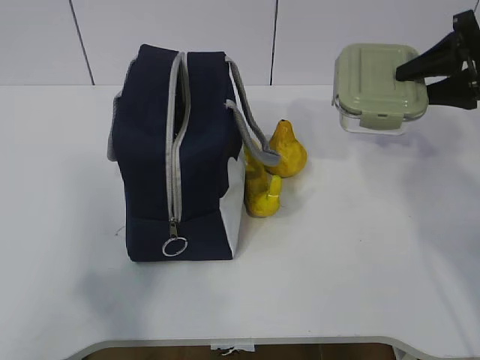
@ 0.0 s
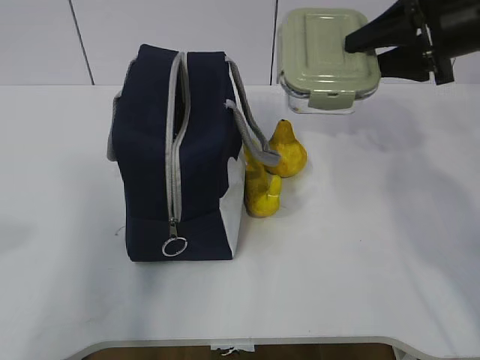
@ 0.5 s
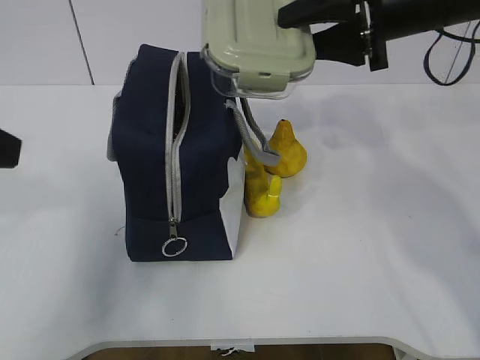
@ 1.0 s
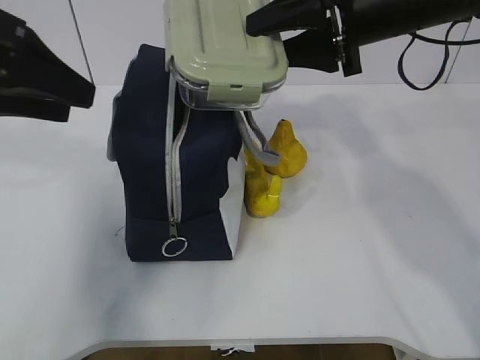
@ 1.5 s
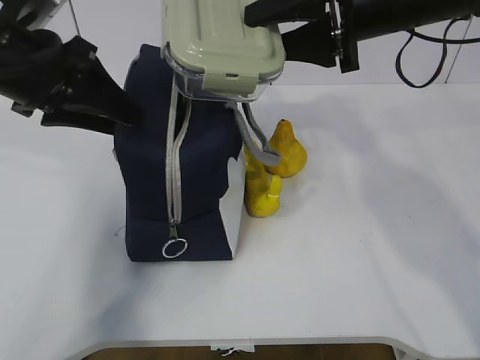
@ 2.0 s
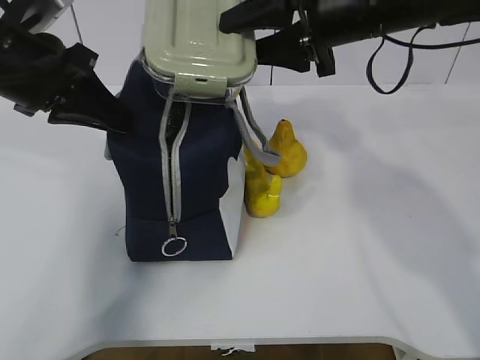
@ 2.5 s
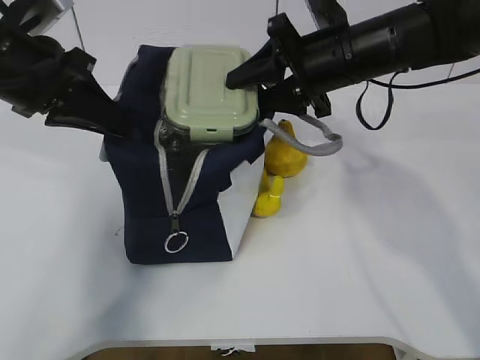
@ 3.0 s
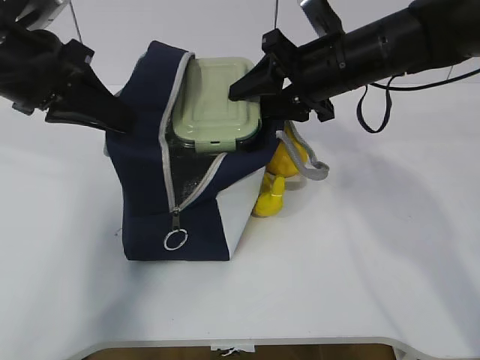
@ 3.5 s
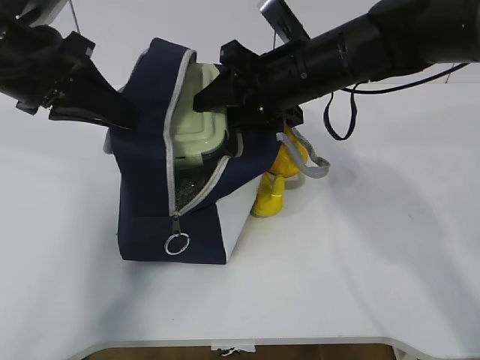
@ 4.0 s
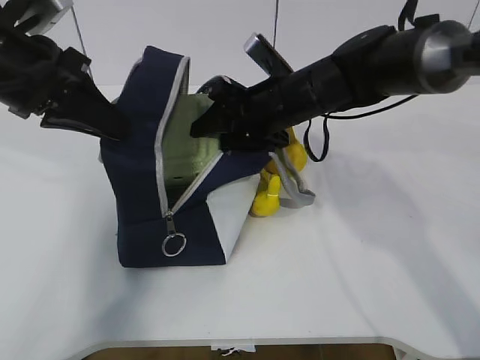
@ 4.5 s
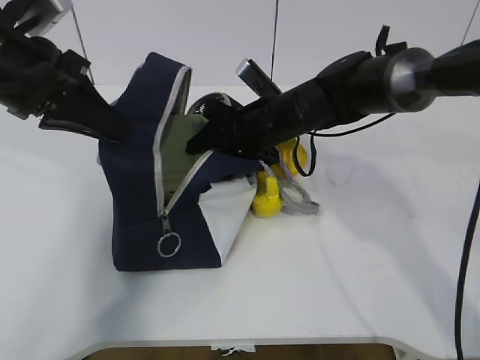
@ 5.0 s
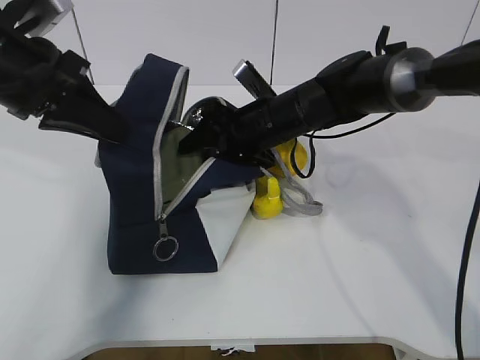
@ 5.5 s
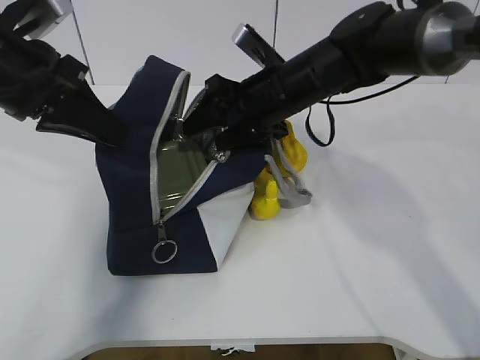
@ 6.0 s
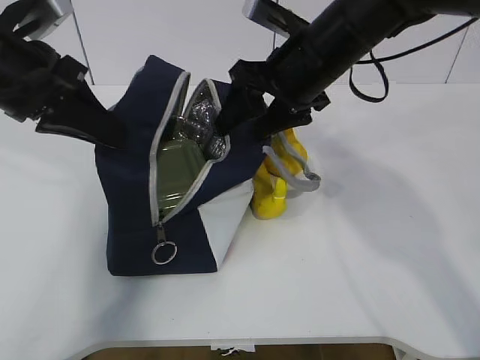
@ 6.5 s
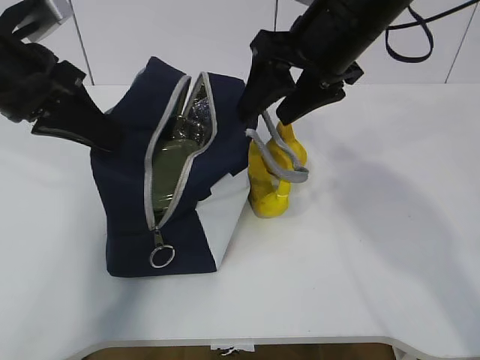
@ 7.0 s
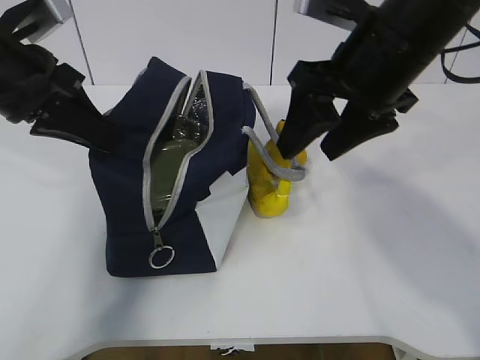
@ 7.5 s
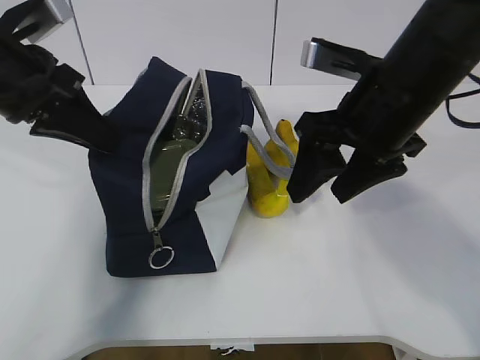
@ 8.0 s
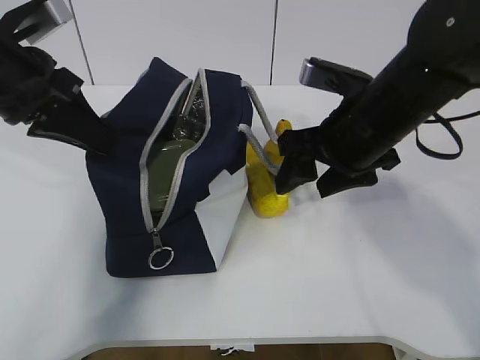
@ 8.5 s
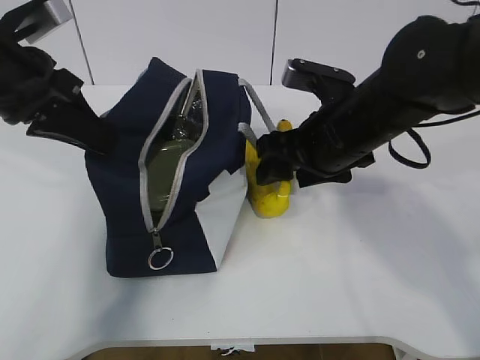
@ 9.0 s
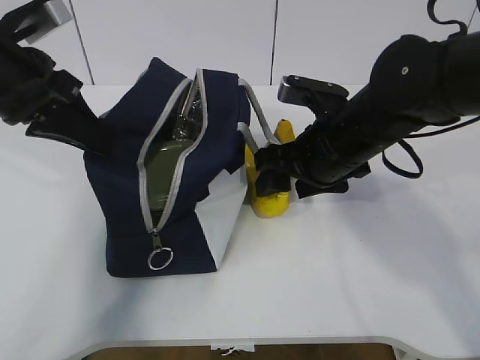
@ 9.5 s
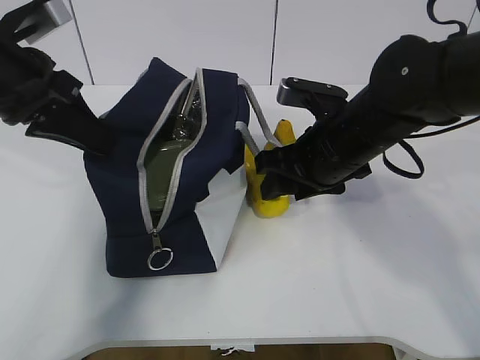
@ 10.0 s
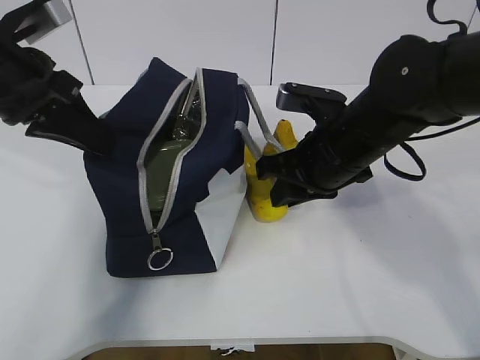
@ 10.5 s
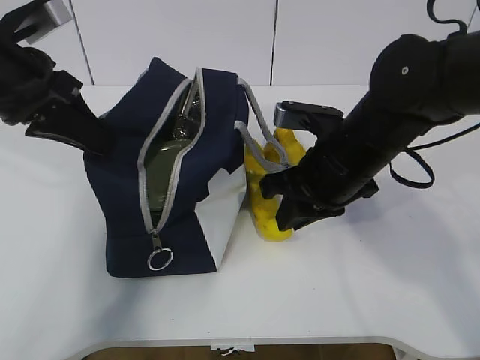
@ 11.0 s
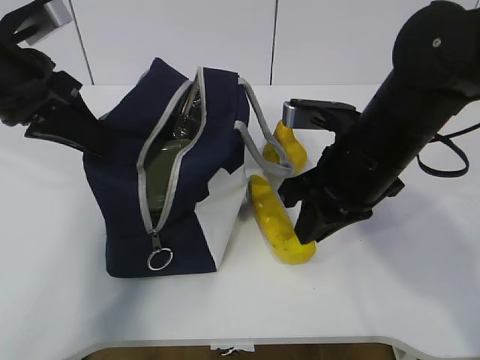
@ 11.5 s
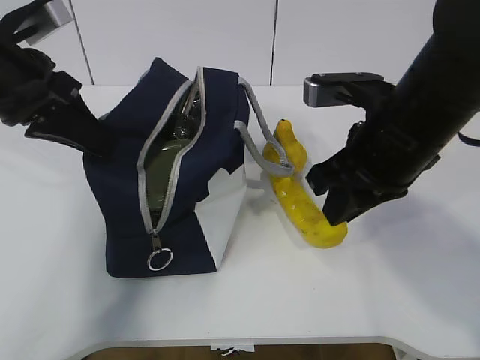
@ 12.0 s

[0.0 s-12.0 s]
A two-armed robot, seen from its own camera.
Step, 1.0 to 3.0 s: Place it into the bag with your right hand.
Step, 3.5 to 8.0 s: Grab the banana with your right hand.
Step, 8.5 to 11.0 s: Place it into the bag with your right hand.
0.0 to 2.0 s: The left gripper travels forward by some 30 cm. Meanwhile the right gripper heads to the left, covering approximately 15 cm.
2.0 to 4.0 s: The right gripper heads downward and to the left, covering roughly 10 cm. The left gripper closes up.
6.0 to 8.0 s: The right gripper moves backward, to the right and upward, about 15 cm.
8.0 to 10.0 s: The right gripper travels downward by approximately 10 cm.
10.0 to 12.0 s: The right gripper shifts some 10 cm backward and upward, and closes.

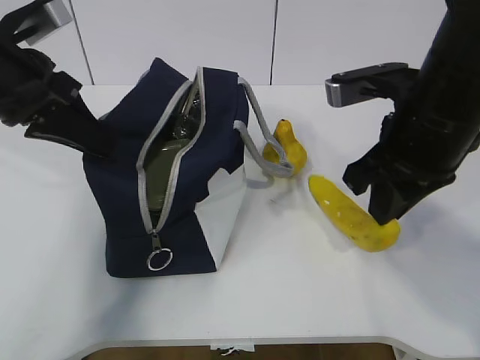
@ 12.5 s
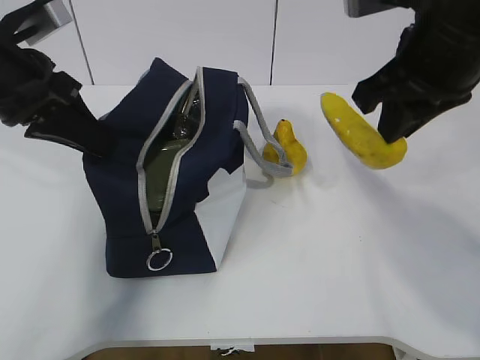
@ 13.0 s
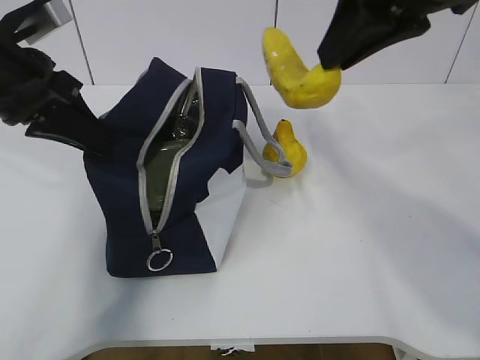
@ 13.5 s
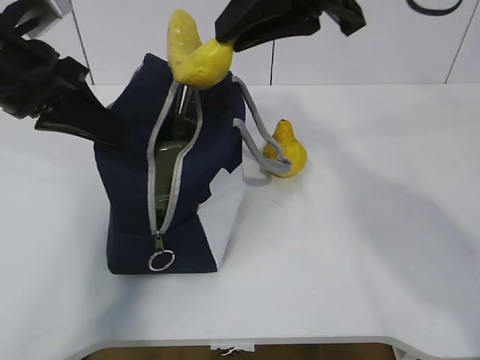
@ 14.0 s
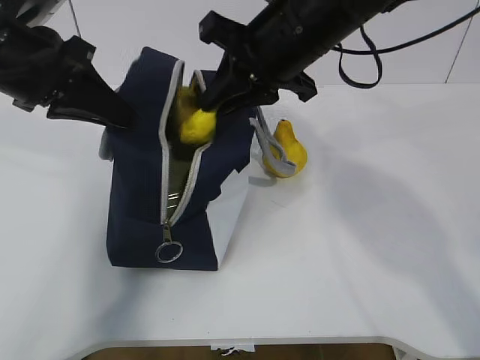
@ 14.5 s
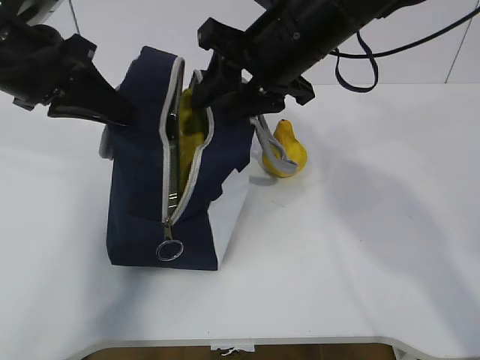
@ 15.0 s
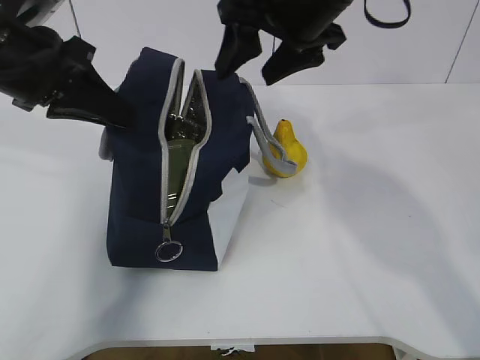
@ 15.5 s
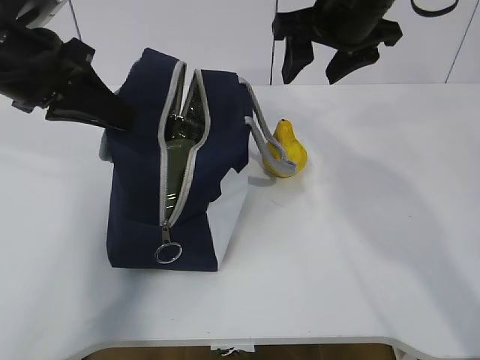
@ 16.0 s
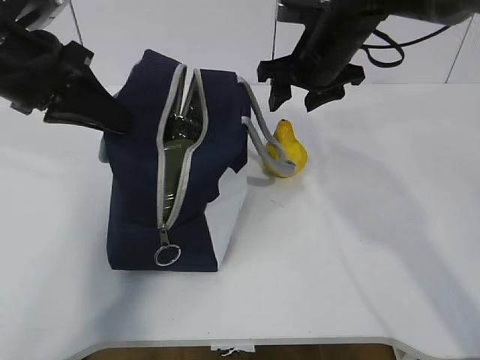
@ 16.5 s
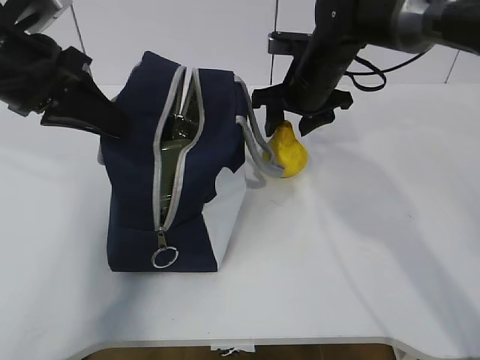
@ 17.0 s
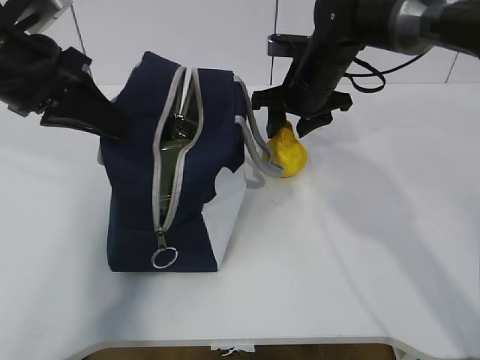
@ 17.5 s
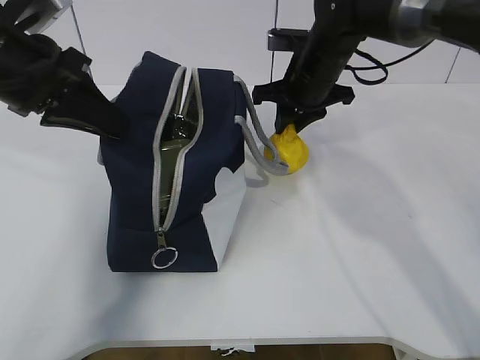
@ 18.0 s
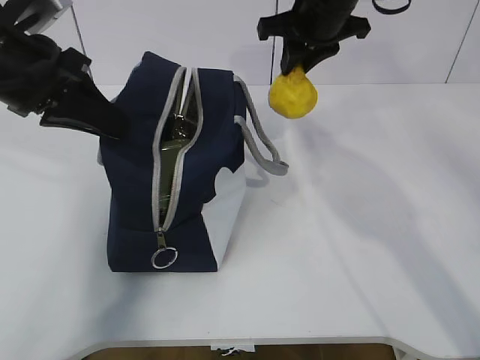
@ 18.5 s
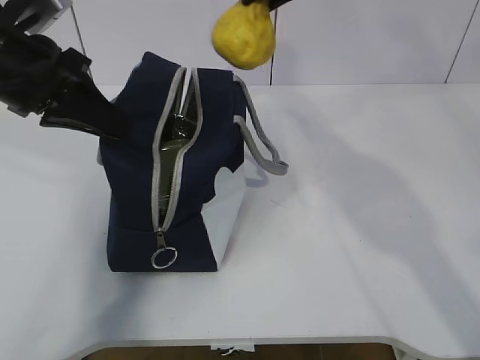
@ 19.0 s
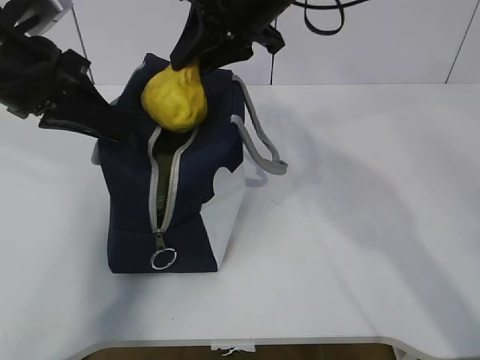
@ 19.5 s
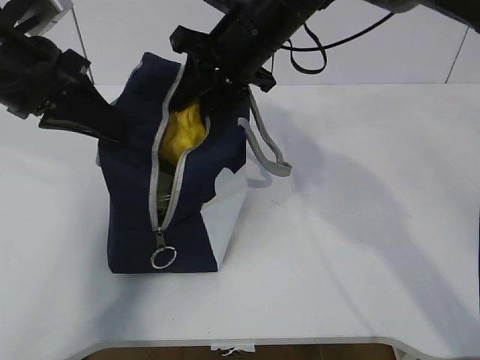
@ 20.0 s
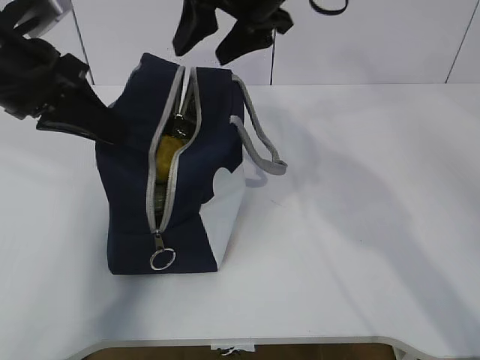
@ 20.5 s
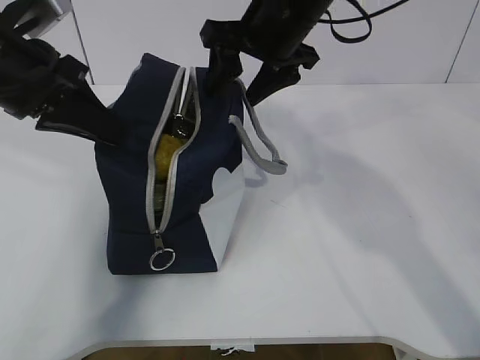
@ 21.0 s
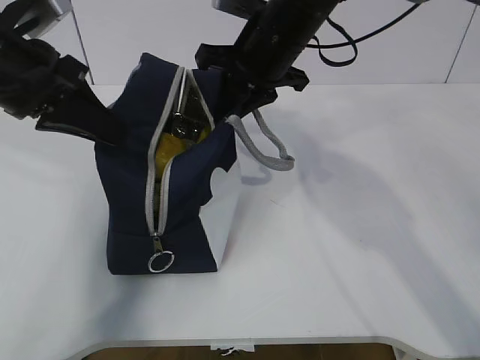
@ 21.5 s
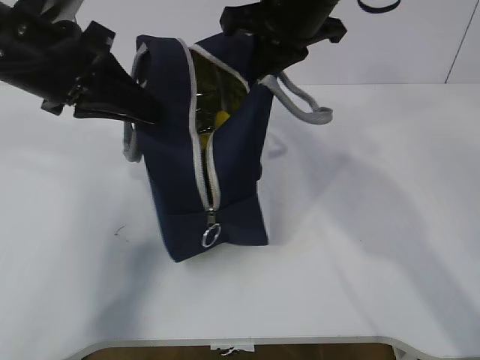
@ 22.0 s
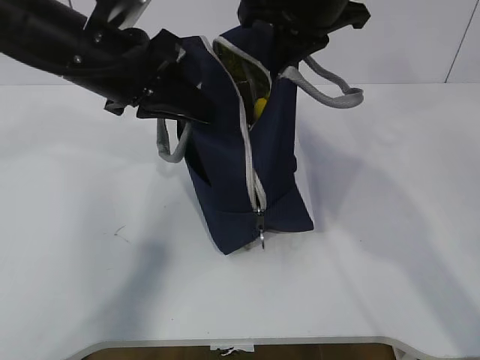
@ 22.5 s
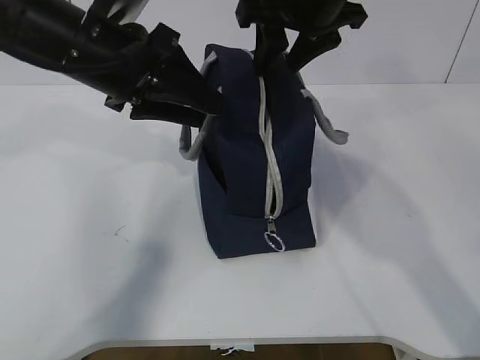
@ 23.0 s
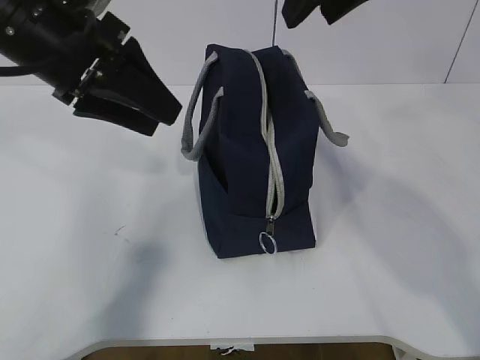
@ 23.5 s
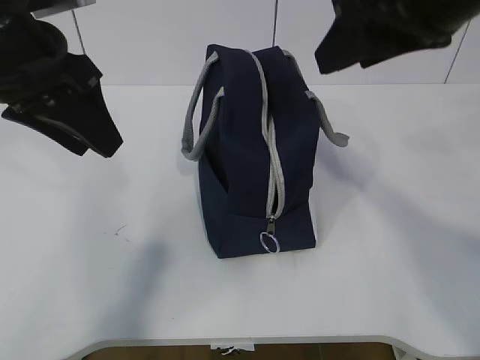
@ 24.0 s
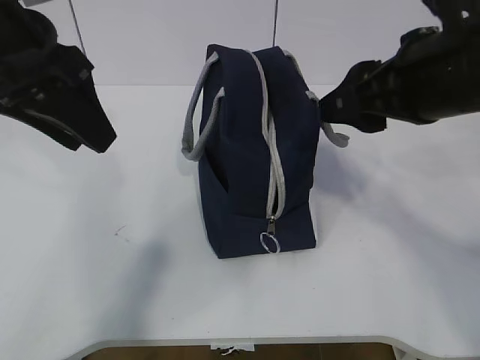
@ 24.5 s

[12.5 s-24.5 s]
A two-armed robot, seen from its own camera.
Step, 12.5 to 13.5 s: Grab the pear with your right hand.
Step, 17.0 to 17.5 s: Move the lunch bag to the right.
12.5 to 14.5 s: The right gripper goes about 10 cm forward and to the left, and travels upward and back again, roughly 10 cm each way.
14.5 to 16.5 s: The right gripper moves forward, downward and to the right, roughly 10 cm, and opens up.
16.5 to 18.5 s: The right gripper changes place by some 5 cm, and closes its fingers.
18.5 to 20.5 s: The right gripper moves up and down over roughly 10 cm, changing direction 2 times, and opens up.
20.5 to 22.5 s: The left gripper goes roughly 5 cm to the right. The right gripper changes place by some 5 cm, and closes up.
22.5 to 24.5 s: The left gripper heads backward and upward, covering some 10 cm, and opens its fingers, while the right gripper moves backward and to the right, approximately 15 cm, and opens up.

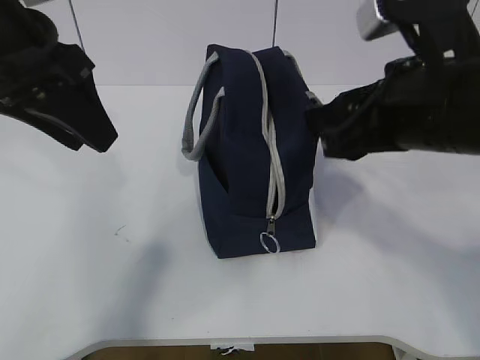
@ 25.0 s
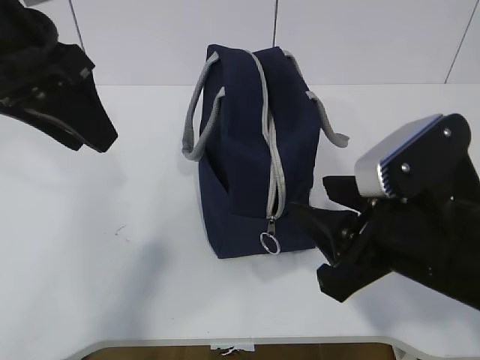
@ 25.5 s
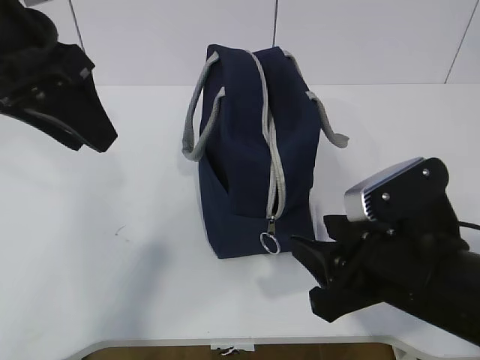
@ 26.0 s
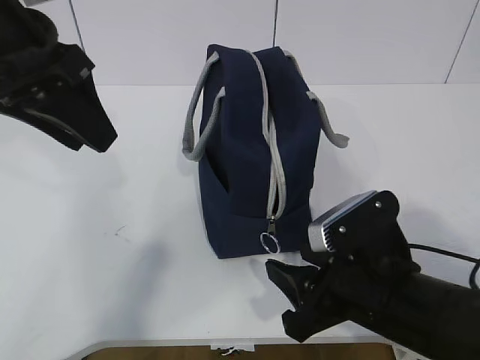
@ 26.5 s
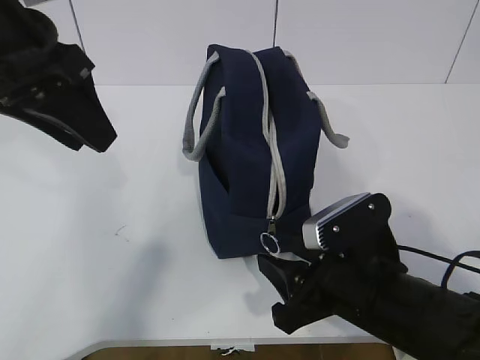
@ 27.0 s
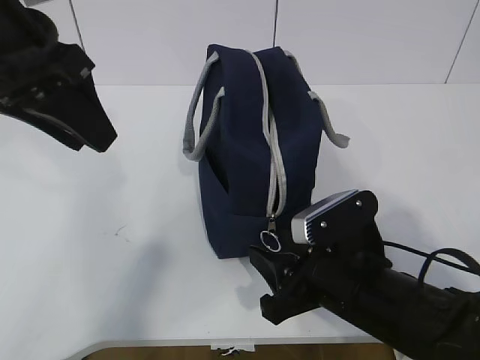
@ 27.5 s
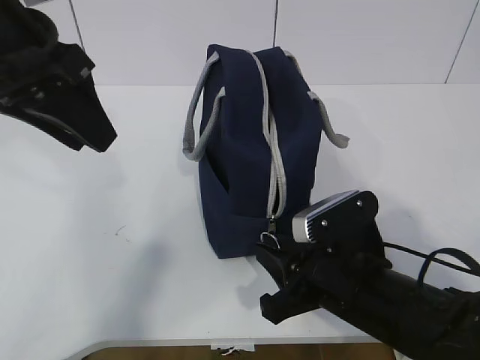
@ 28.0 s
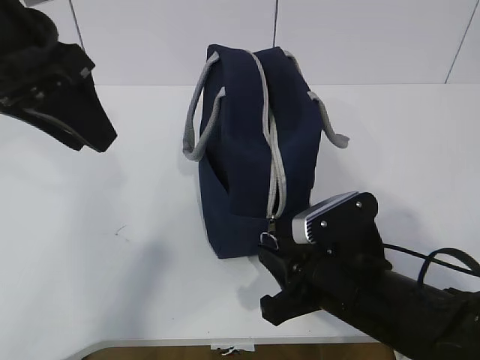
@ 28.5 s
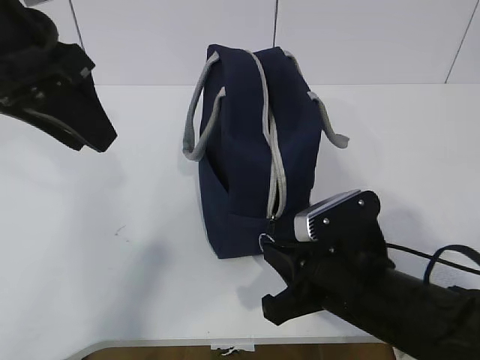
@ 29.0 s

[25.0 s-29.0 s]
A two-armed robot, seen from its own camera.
25.0 to 27.0 s: The right gripper goes approximately 15 cm downward.
27.0 to 29.0 s: The right gripper closes.
